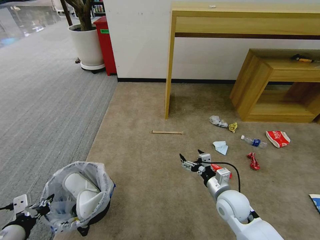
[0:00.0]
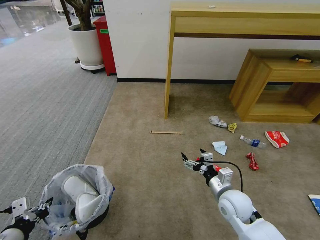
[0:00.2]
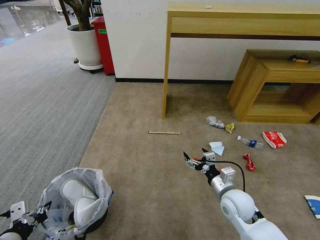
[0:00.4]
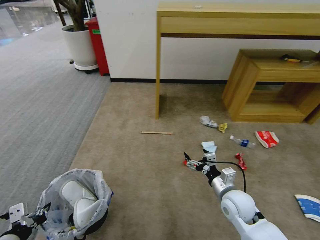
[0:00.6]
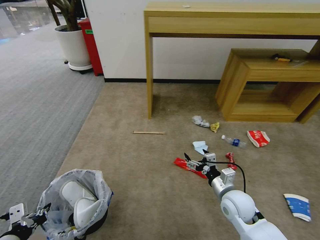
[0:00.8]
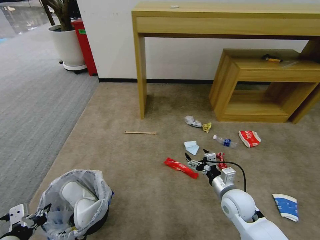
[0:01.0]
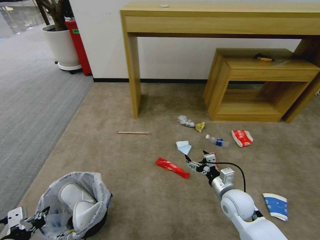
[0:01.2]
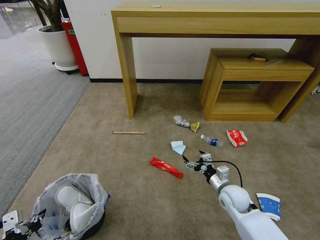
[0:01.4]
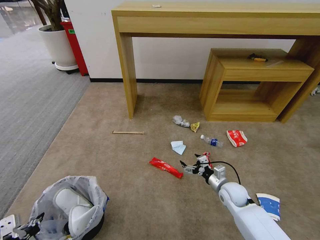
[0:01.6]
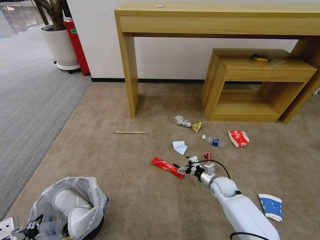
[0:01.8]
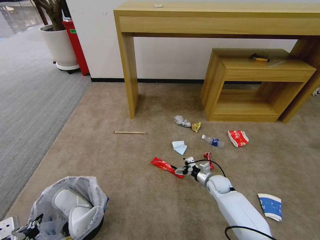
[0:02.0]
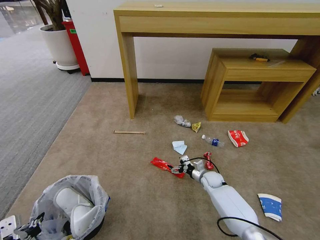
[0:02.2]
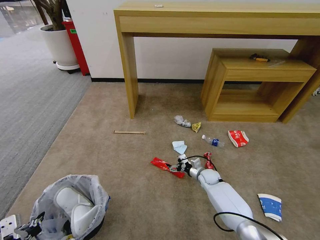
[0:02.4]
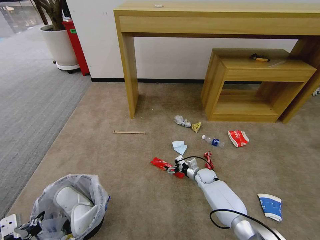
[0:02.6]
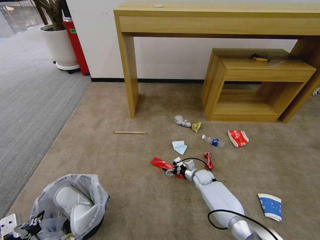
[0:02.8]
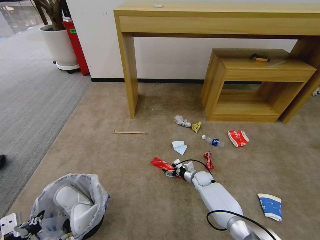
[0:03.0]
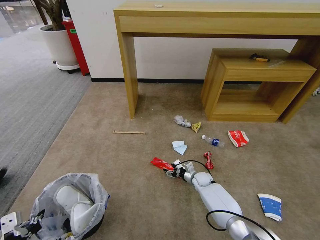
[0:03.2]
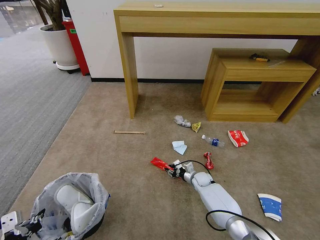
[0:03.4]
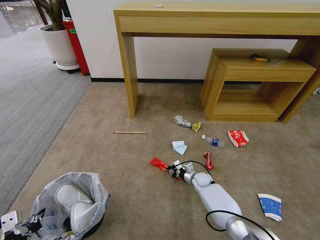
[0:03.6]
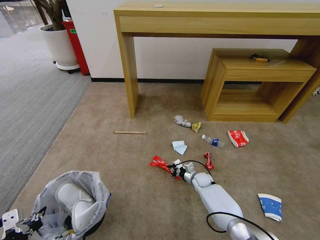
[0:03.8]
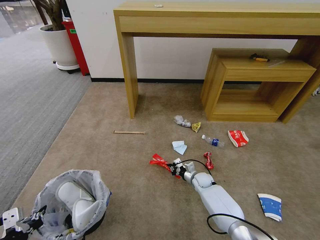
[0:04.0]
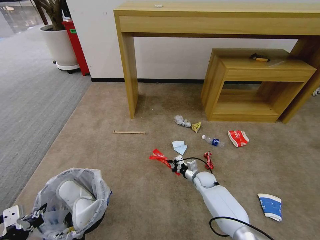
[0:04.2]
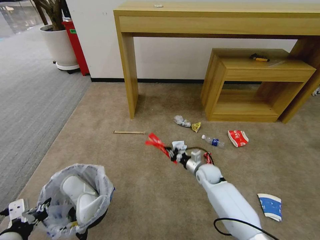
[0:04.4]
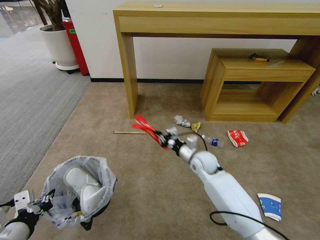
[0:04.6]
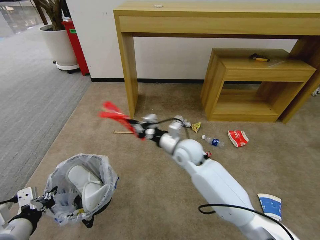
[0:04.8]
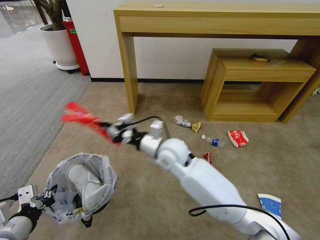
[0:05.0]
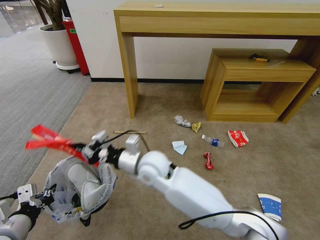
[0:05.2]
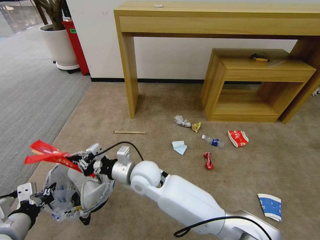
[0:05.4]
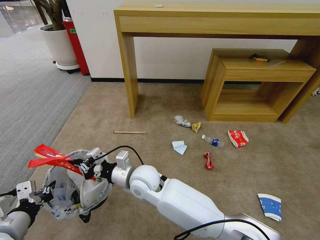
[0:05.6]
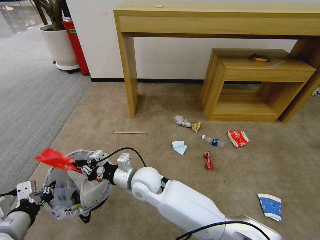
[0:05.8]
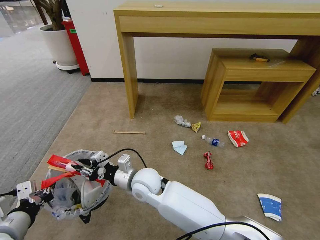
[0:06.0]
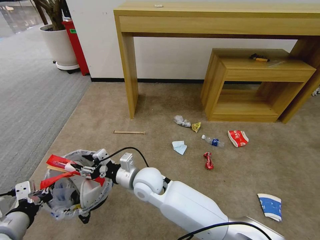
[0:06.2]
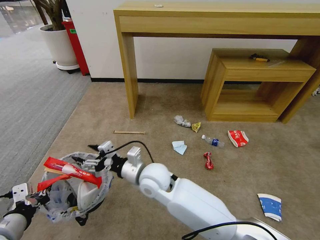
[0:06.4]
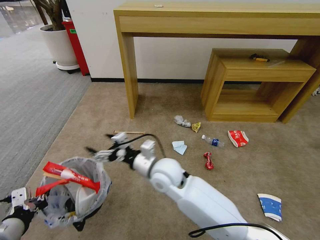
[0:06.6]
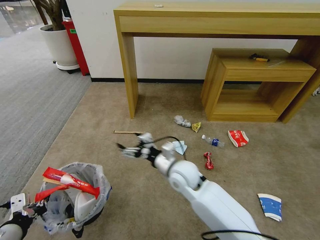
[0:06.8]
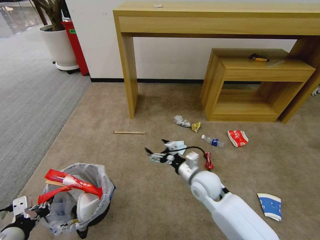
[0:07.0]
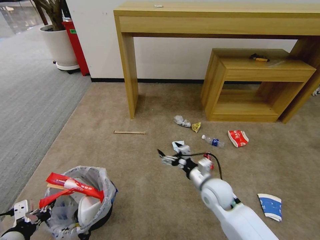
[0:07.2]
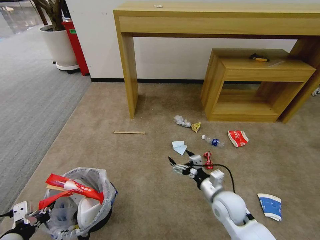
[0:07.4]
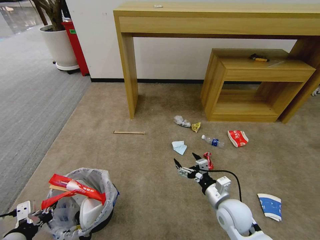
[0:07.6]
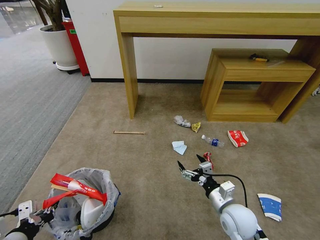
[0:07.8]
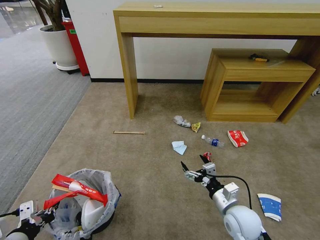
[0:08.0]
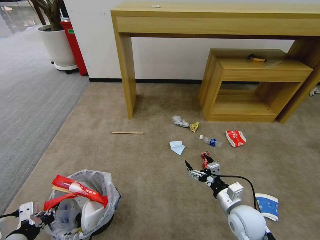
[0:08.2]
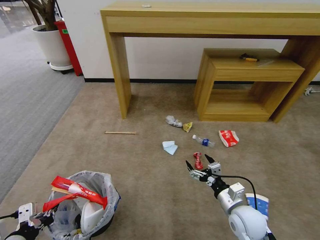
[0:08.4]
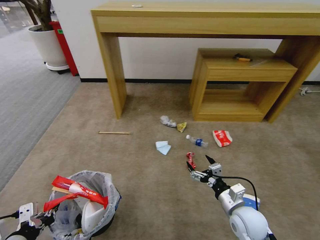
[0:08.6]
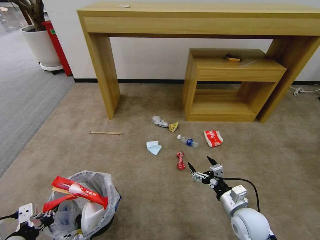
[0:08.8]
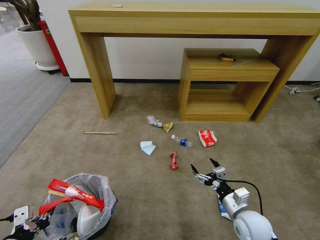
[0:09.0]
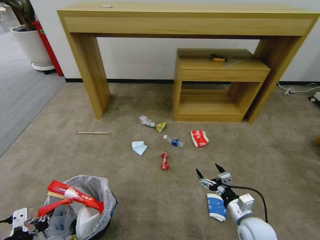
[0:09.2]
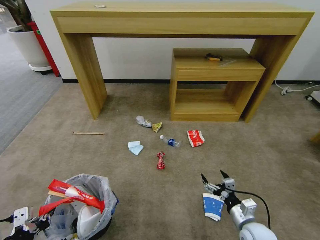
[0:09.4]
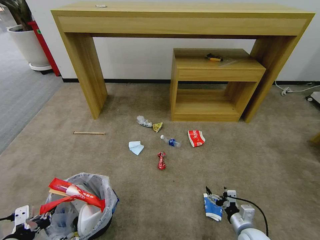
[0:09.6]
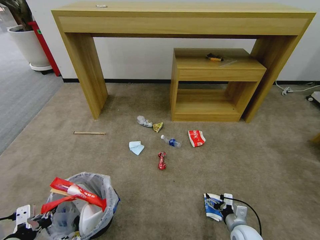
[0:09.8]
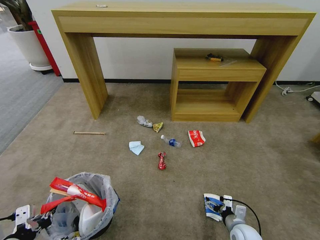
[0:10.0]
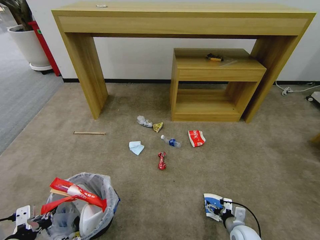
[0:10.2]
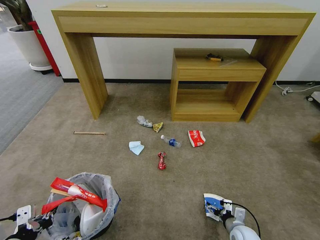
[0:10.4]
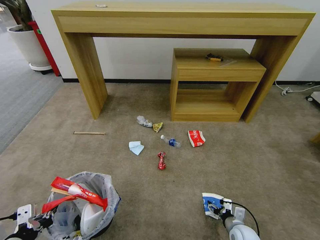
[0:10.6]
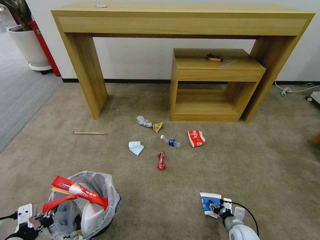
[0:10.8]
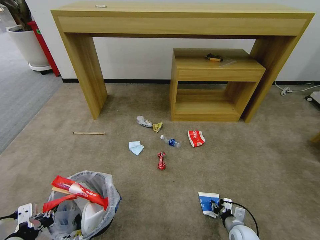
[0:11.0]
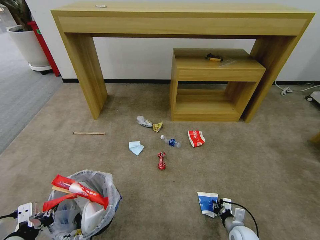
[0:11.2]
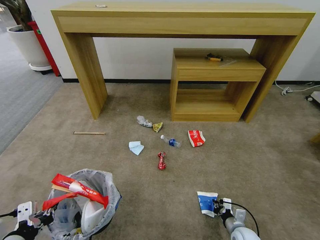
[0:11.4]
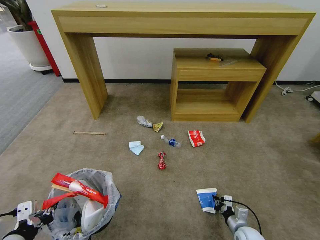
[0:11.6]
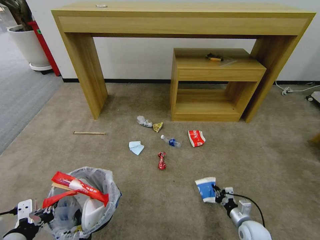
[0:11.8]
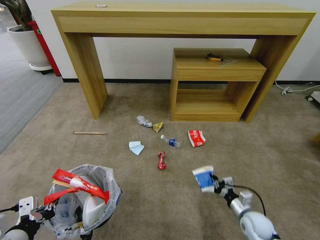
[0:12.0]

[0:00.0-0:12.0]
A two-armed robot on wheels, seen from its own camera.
Task of the whole recording: Pick up the trash bin and place the garbage on the floor into it.
0:00.0 to 0:01.6: The right gripper moves downward, forward and to the right, some 10 cm.
0:01.6 to 0:03.0: The right gripper shifts approximately 15 cm forward, downward and to the left.
0:03.0 to 0:04.4: The right gripper heads upward, covering some 10 cm, and closes.
0:04.4 to 0:06.0: The right gripper moves to the left and upward, approximately 30 cm.
0:06.0 to 0:07.6: The right gripper moves to the right, approximately 30 cm, and opens.
0:07.6 to 0:09.0: The right gripper moves to the right, about 5 cm.
0:09.0 to 0:10.4: The right gripper heads downward, covering some 15 cm.
0:10.4 to 0:12.0: The right gripper is displaced upward by some 5 cm, and closes its fingers.

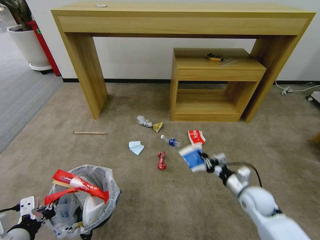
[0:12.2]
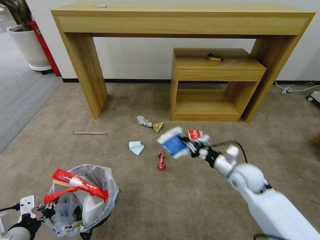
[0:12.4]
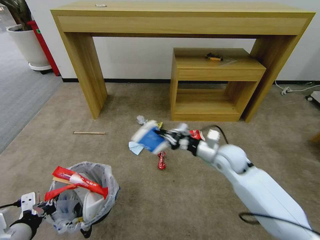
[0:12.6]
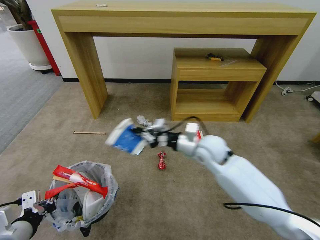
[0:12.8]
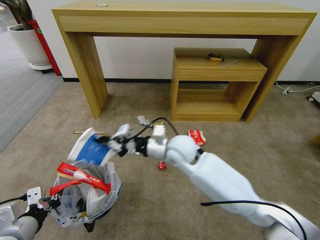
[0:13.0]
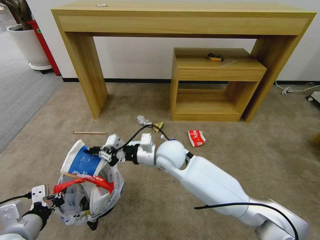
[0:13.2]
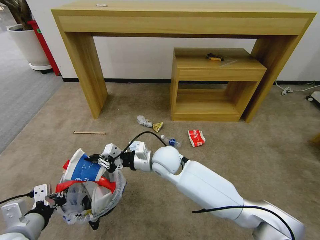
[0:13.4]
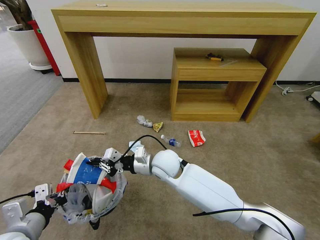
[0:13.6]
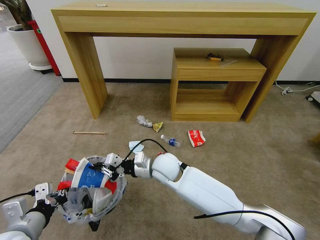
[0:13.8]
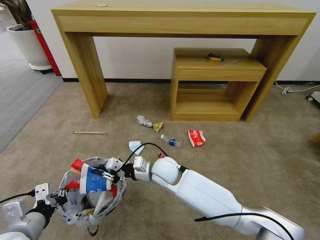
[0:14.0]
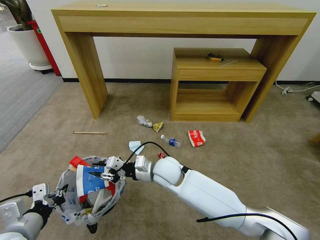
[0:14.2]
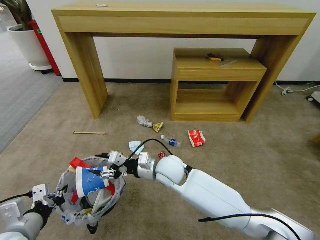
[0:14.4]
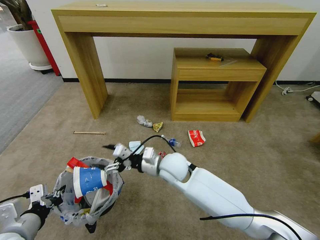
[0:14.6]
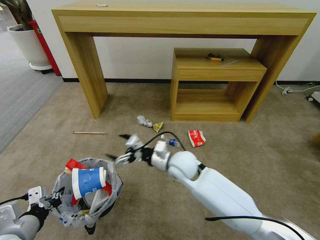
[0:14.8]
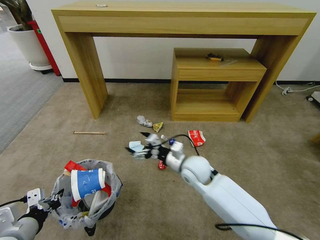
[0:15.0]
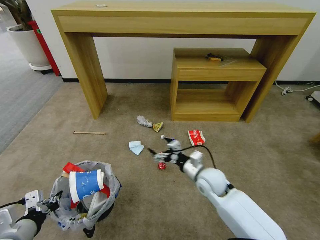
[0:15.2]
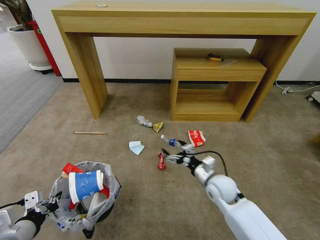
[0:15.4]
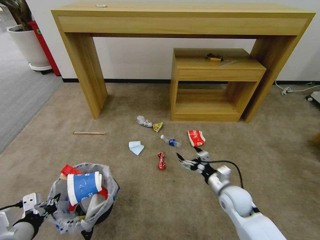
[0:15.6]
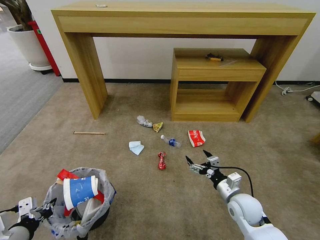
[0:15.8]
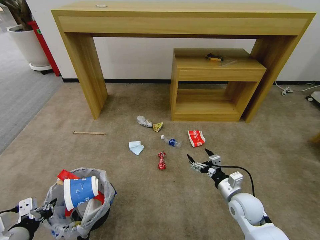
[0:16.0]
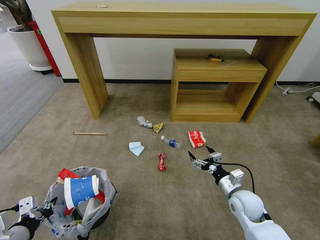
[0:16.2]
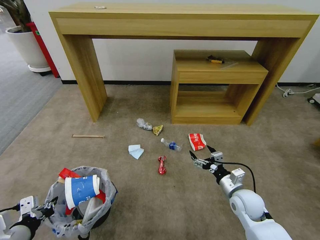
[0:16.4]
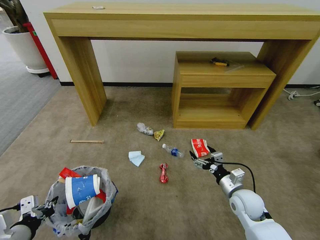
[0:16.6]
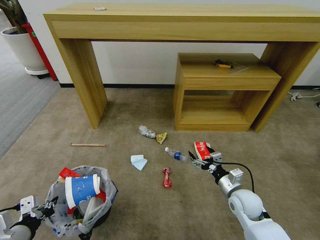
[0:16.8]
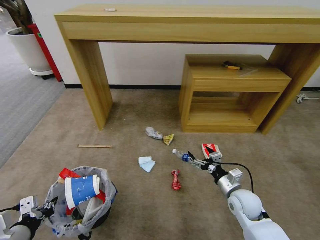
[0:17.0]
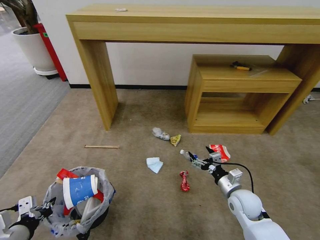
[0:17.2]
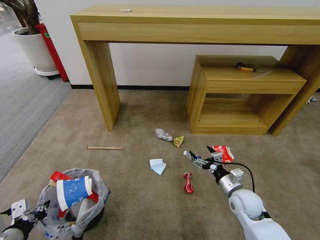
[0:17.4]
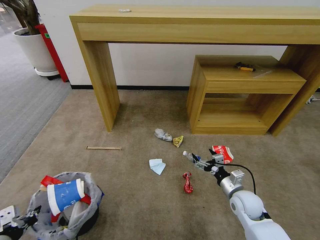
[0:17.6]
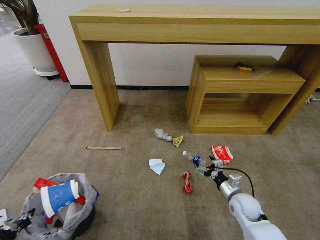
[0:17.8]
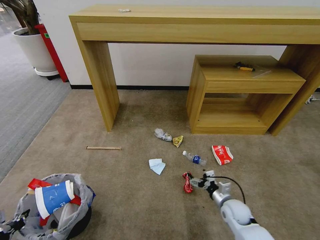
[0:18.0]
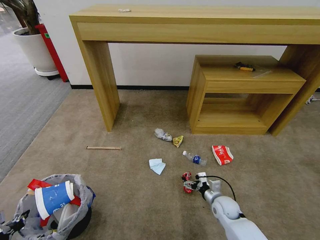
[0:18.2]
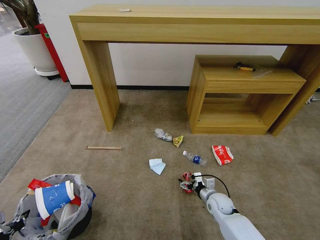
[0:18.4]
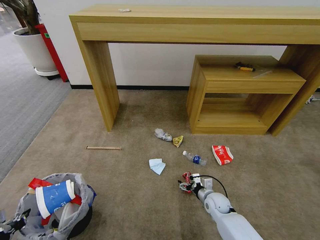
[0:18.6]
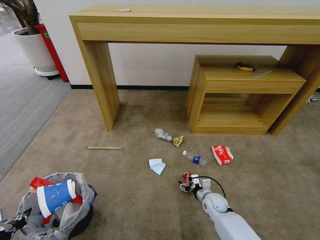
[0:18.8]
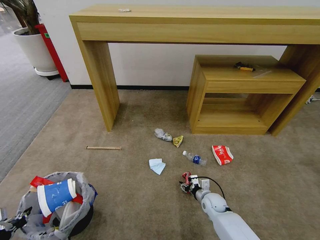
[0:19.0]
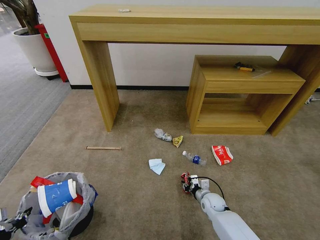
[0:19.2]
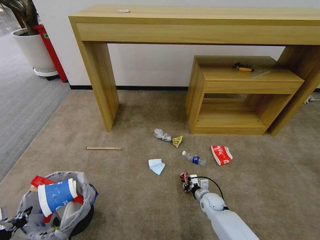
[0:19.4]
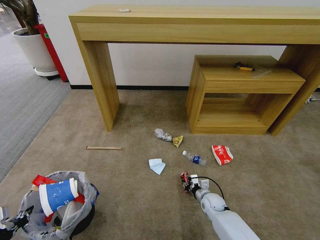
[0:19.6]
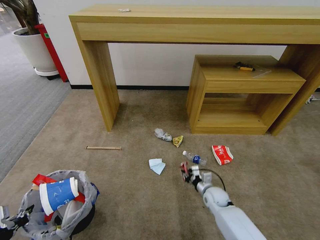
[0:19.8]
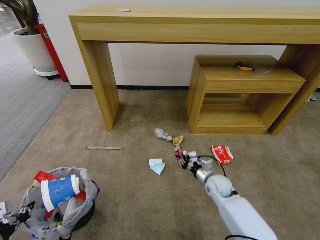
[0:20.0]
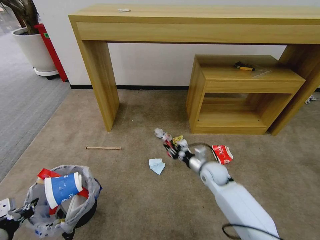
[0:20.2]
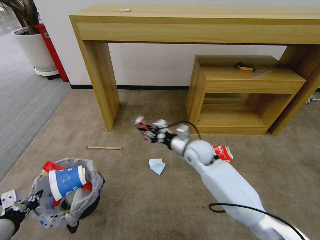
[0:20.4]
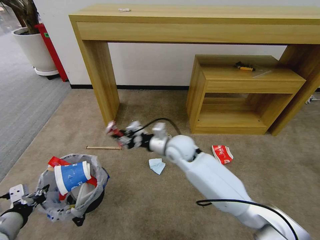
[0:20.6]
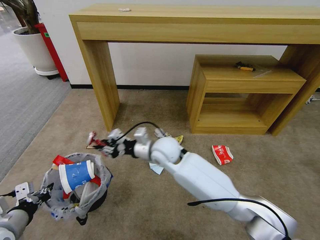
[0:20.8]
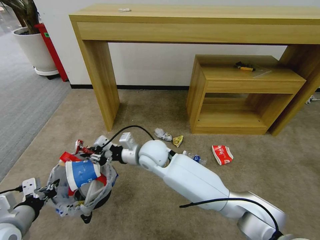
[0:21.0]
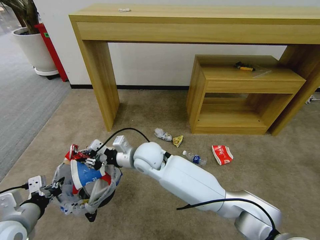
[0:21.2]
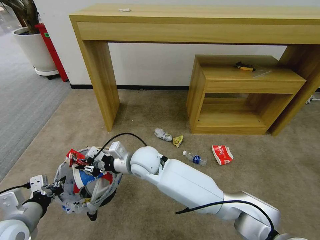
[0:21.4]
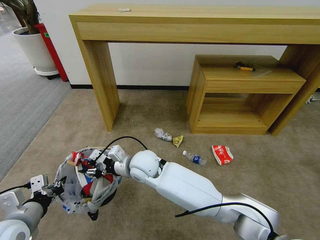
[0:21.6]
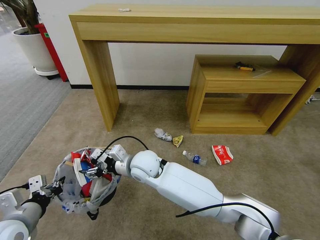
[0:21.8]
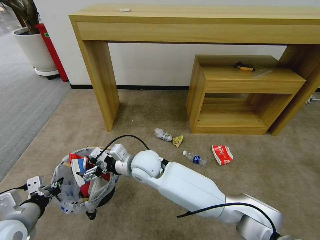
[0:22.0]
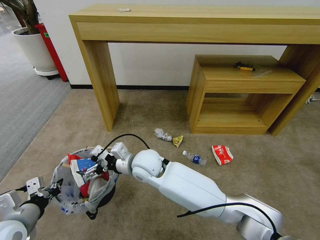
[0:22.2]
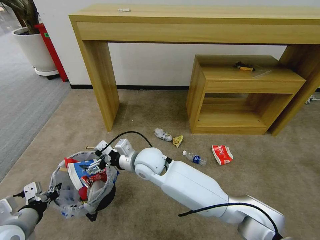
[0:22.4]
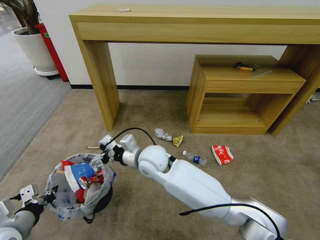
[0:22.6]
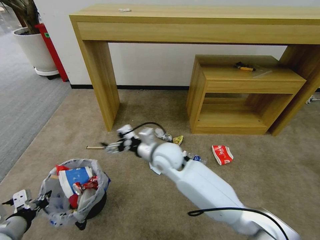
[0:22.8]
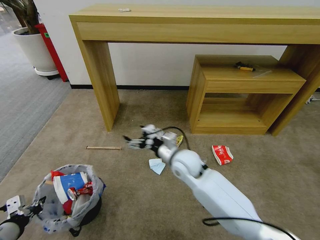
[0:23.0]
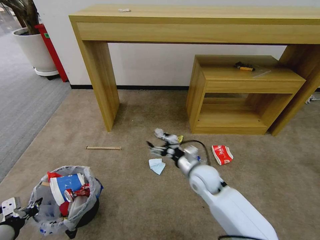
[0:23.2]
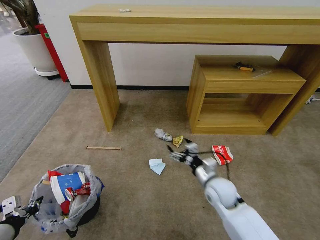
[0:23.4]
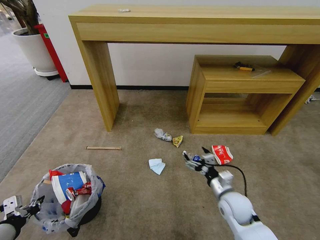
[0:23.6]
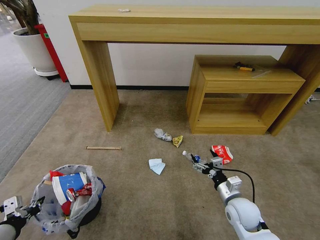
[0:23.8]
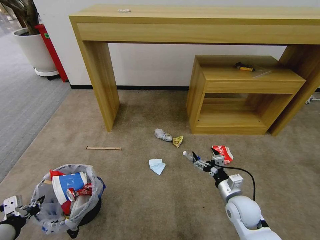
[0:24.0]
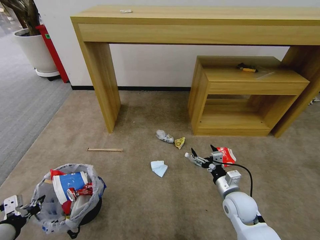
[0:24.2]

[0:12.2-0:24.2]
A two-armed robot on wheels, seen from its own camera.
Task of the whole recording: Pick up the trash bin and place the garbage on the floor into it.
0:12.2 to 0:13.8: The right gripper travels to the left by approximately 30 cm.
0:13.8 to 0:15.2: The right gripper shifts about 15 cm to the right, and opens up.
0:15.2 to 0:16.6: The right gripper is displaced to the right and backward by some 15 cm.
0:16.6 to 0:18.2: The right gripper is displaced downward by roughly 10 cm; the left gripper shifts about 5 cm to the left.
0:18.2 to 0:19.8: The right gripper shifts by some 5 cm, and closes.
0:19.8 to 0:21.2: The left gripper is displaced forward and to the right by approximately 10 cm. The right gripper moves to the left and upward, some 40 cm.
0:21.2 to 0:22.6: The right gripper opens its fingers.
0:22.6 to 0:24.2: The right gripper goes roughly 30 cm to the right and downward. The left gripper changes place by about 5 cm.
